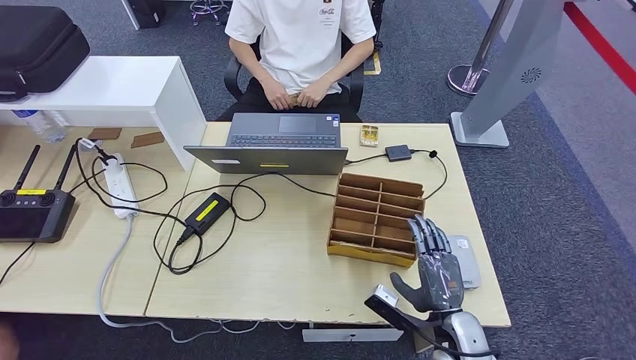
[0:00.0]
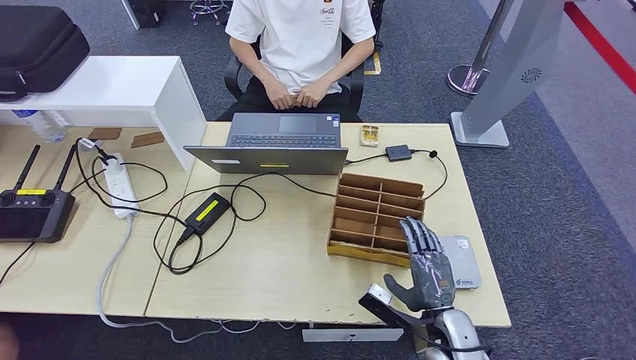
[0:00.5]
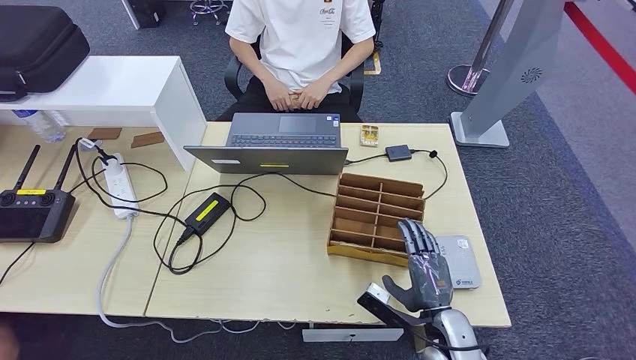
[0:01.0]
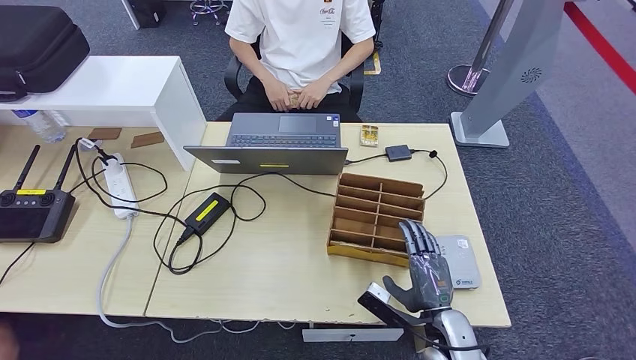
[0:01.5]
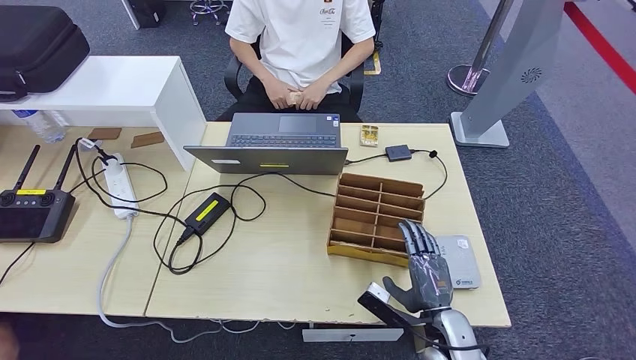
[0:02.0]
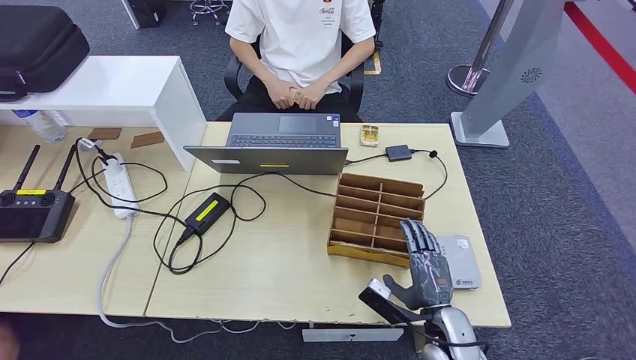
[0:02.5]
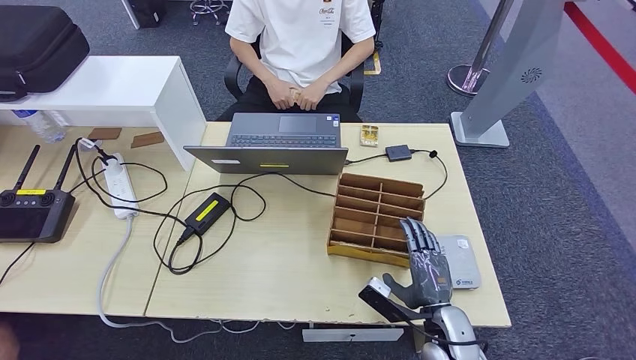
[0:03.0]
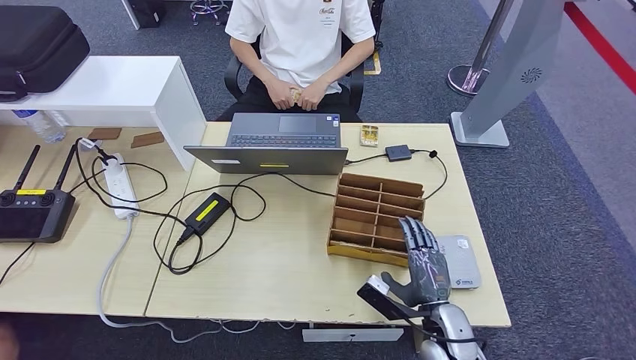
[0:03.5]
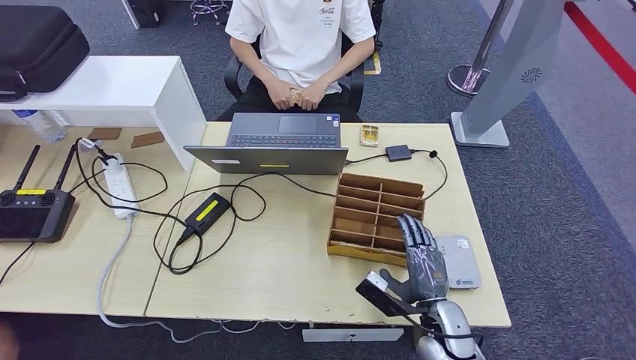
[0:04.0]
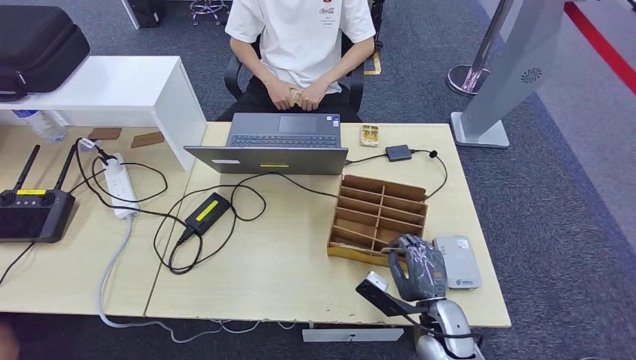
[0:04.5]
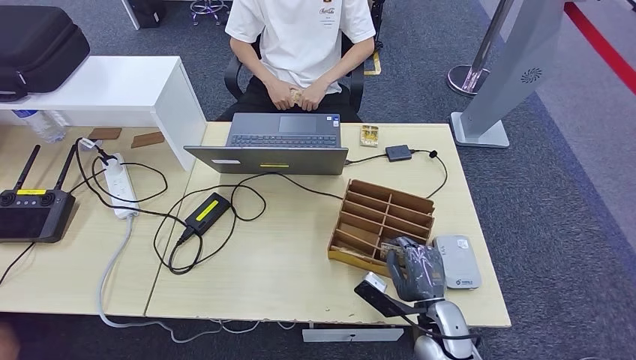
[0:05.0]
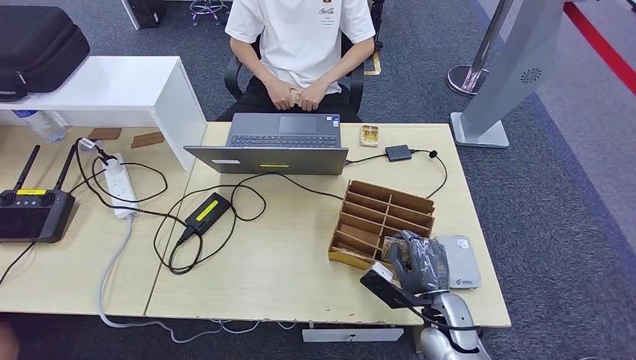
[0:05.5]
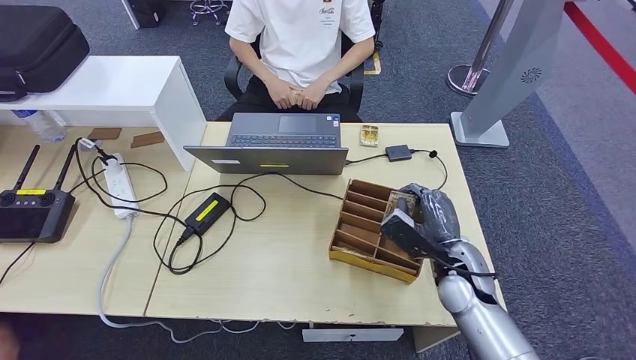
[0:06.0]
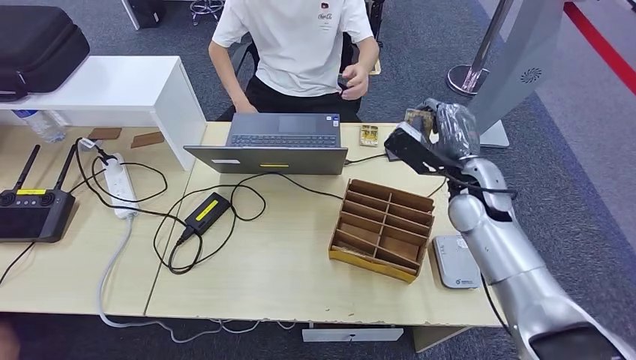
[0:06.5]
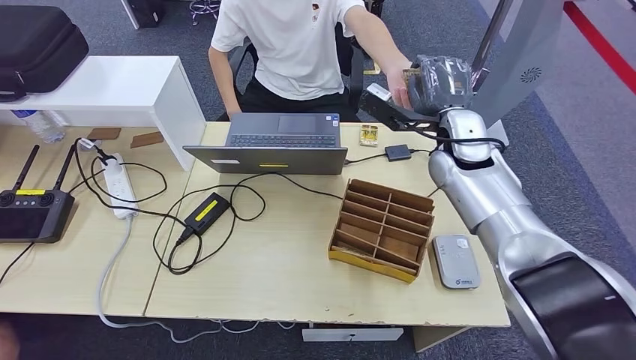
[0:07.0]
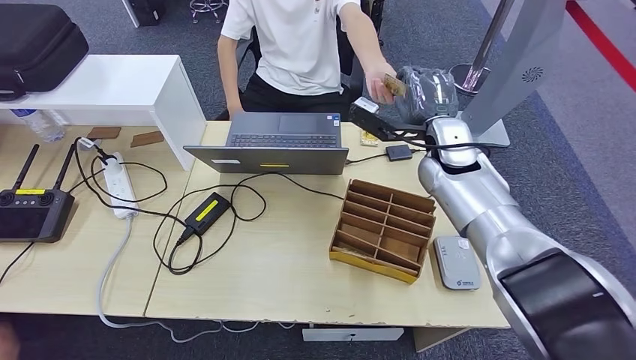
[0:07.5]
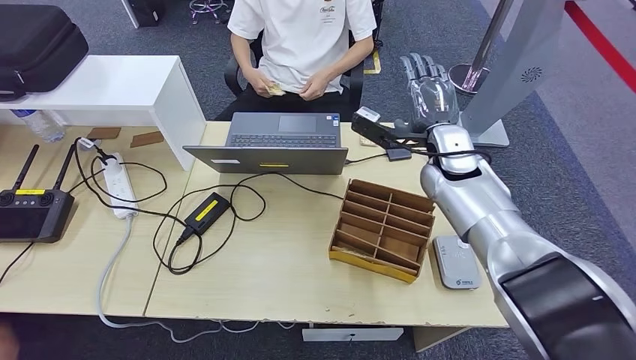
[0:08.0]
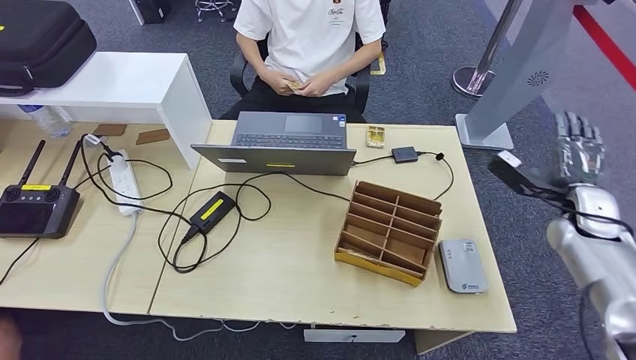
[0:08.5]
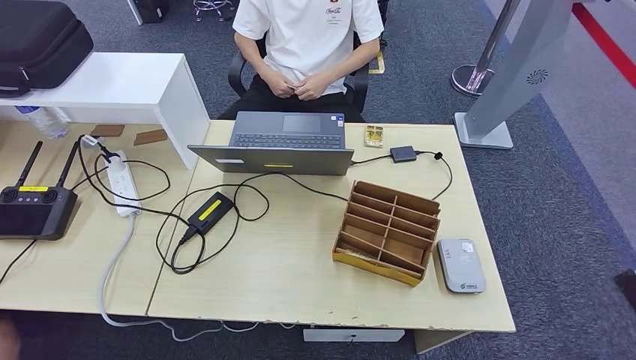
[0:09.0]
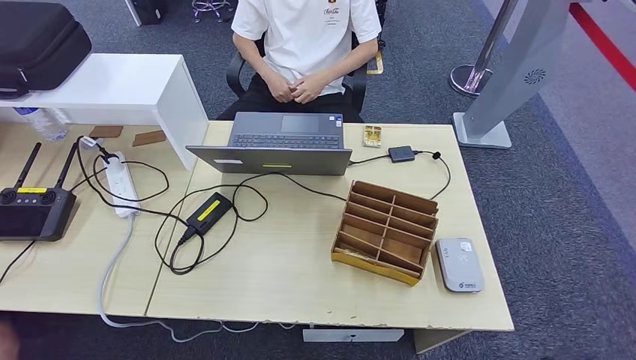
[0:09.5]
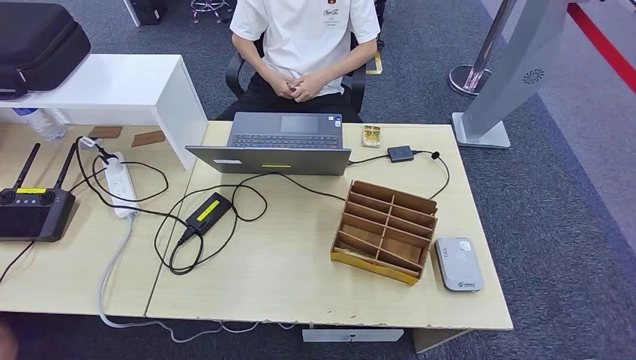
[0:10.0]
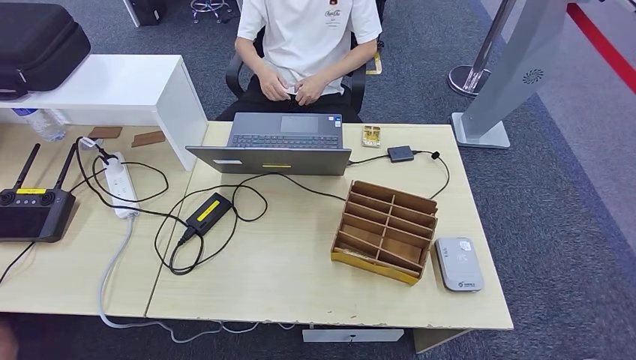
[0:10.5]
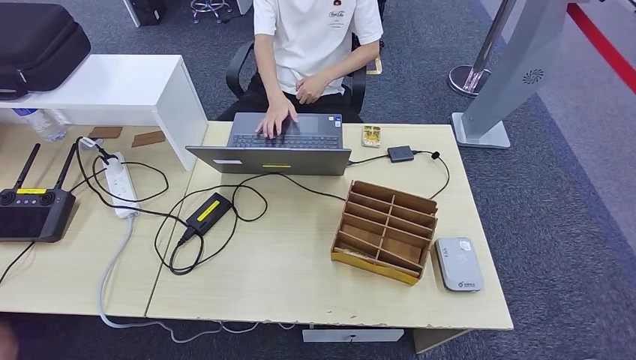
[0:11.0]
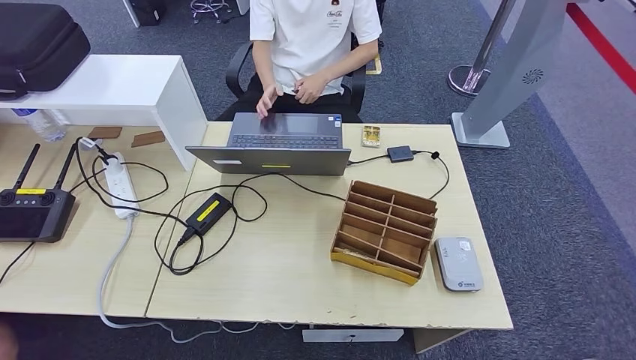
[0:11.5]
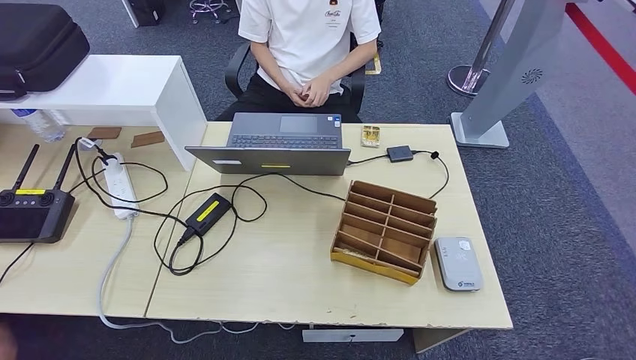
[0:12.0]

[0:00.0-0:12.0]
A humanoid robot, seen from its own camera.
Step, 0:00.0 to 0:05.5: Pick up the room key from the key card box.
0:00.0 to 0:04.0: The hands make only small movements.
0:04.0 to 0:06.0: The right hand heads forward and upward, covering approximately 10 cm.
0:06.0 to 0:08.0: The right hand shifts roughly 20 cm forward and upward.
0:08.0 to 0:10.0: The right hand shifts some 60 cm backward and downward.

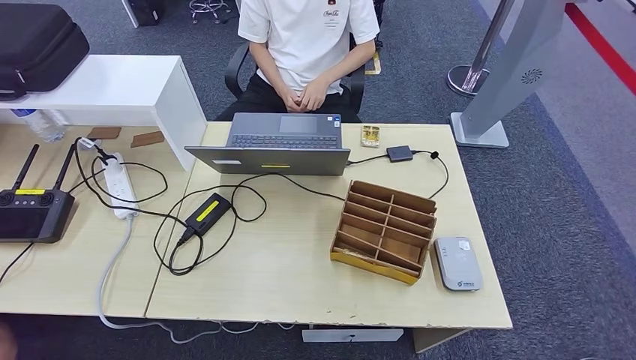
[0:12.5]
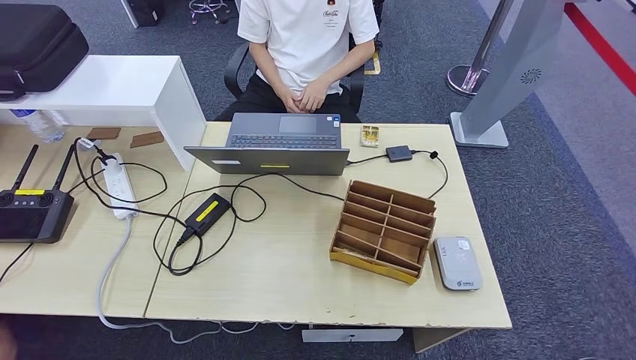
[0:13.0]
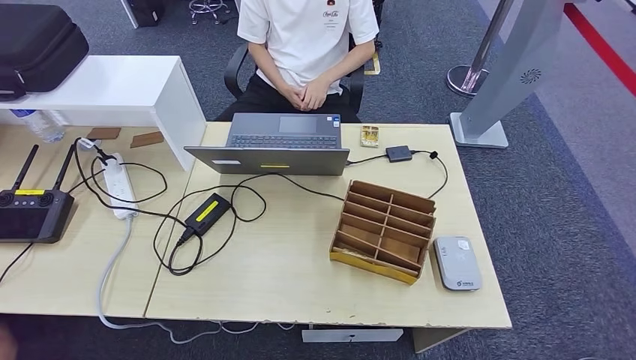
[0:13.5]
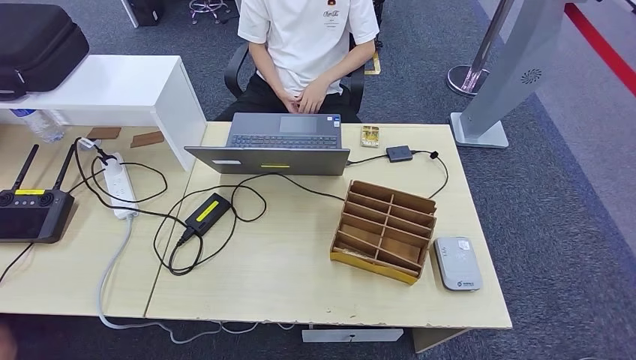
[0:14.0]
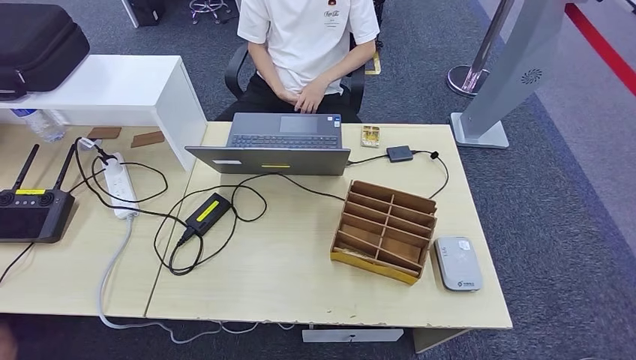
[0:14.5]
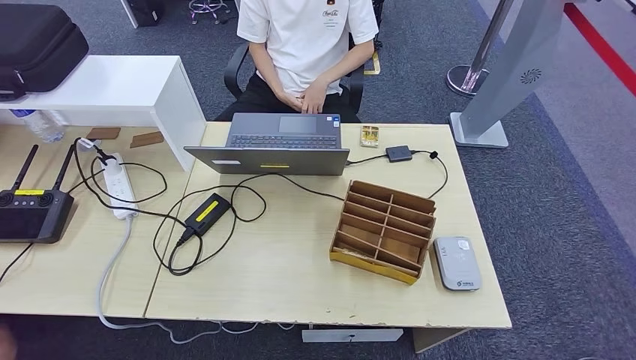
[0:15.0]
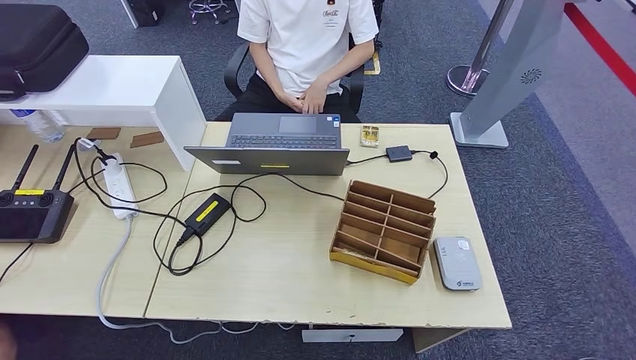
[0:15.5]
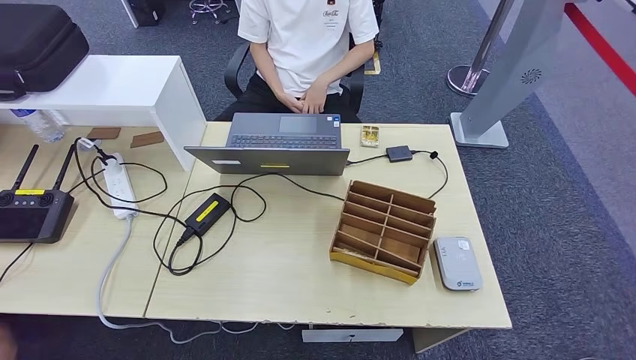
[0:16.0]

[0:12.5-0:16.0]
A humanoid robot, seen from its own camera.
Step, 0:12.5 to 0:16.0: Hand the room key to the person.
